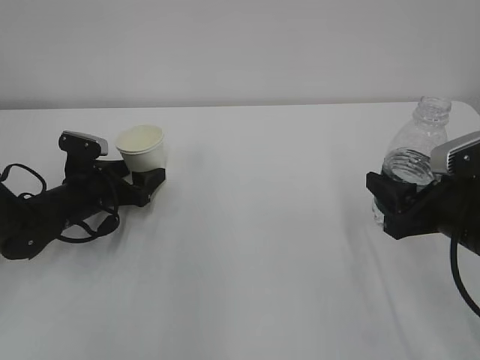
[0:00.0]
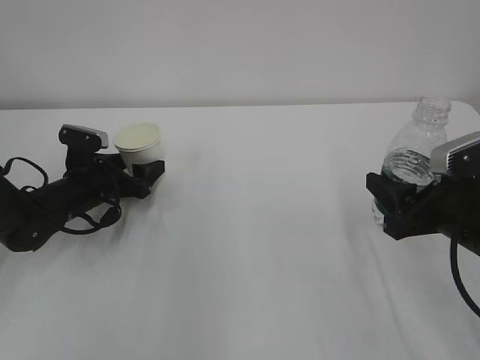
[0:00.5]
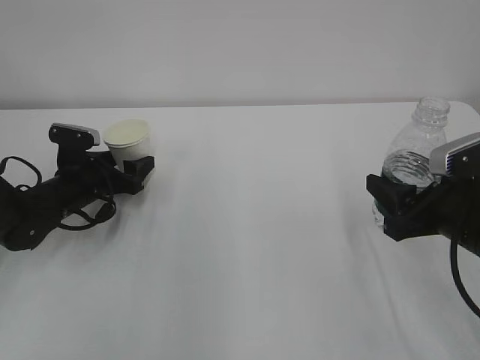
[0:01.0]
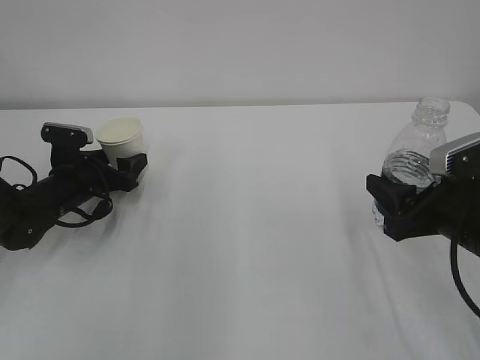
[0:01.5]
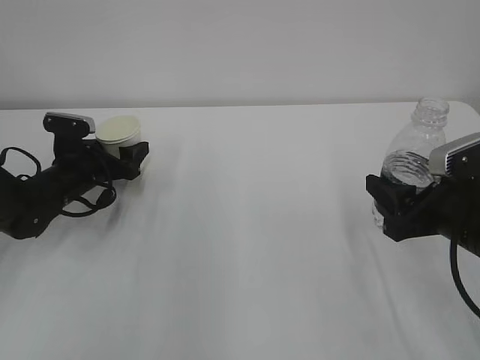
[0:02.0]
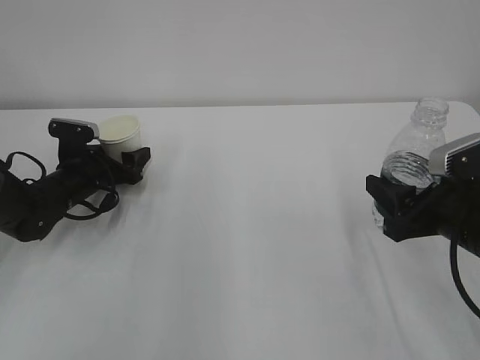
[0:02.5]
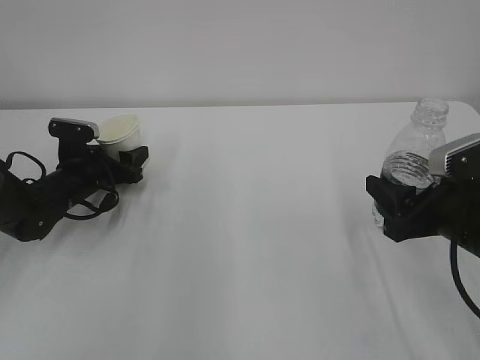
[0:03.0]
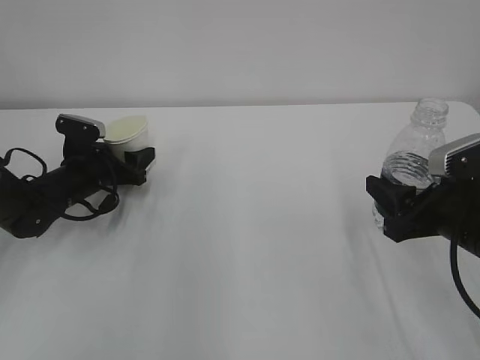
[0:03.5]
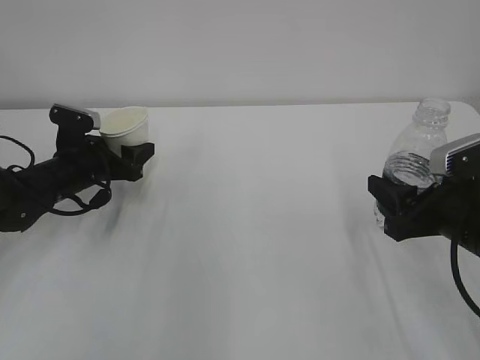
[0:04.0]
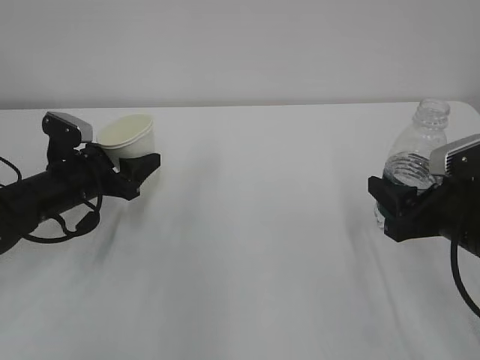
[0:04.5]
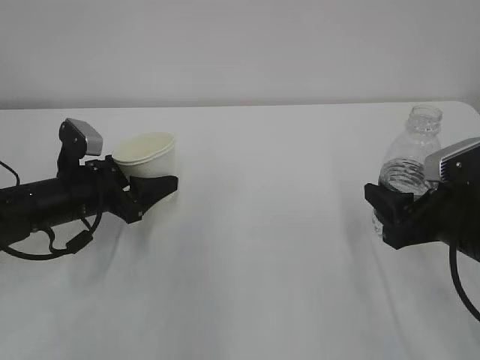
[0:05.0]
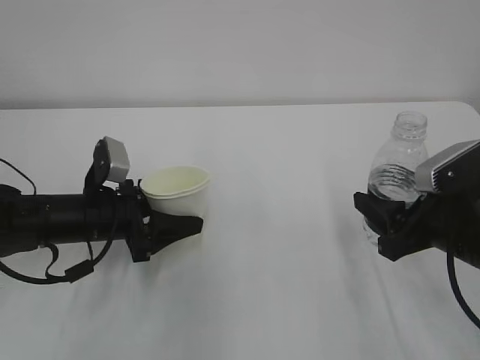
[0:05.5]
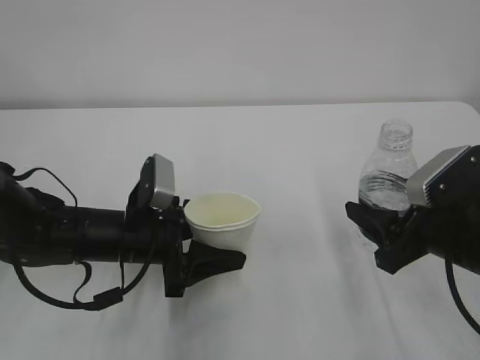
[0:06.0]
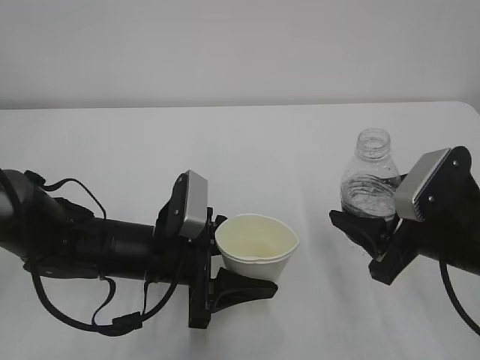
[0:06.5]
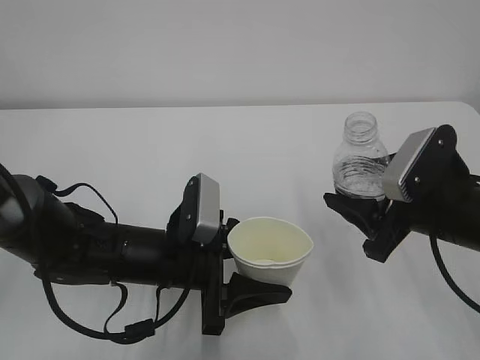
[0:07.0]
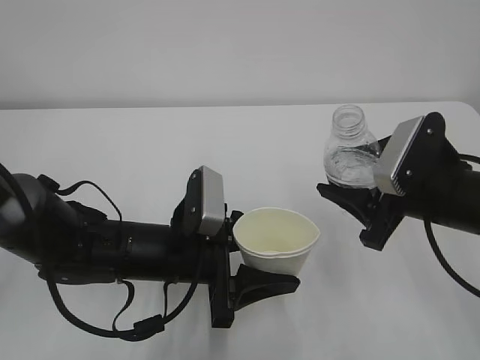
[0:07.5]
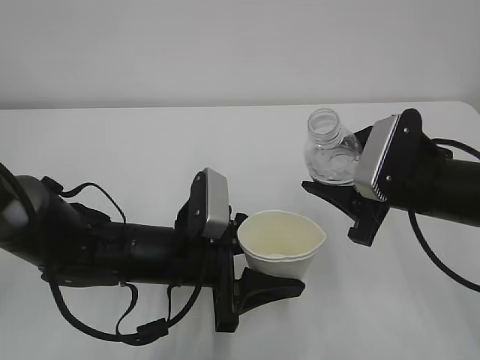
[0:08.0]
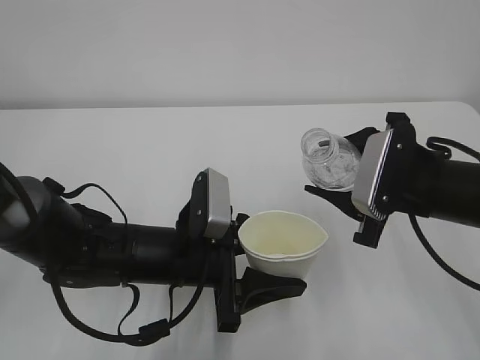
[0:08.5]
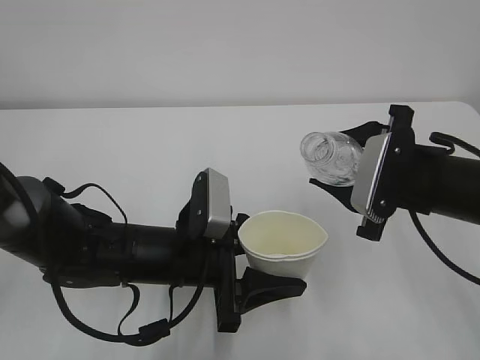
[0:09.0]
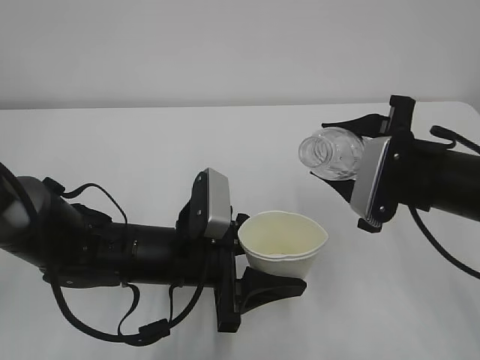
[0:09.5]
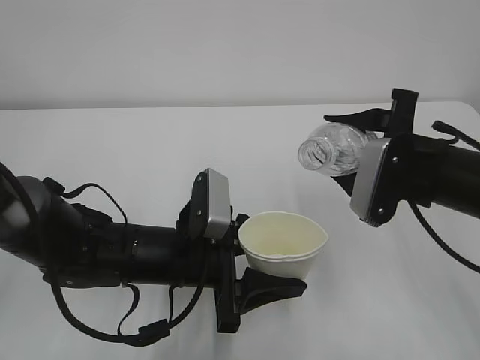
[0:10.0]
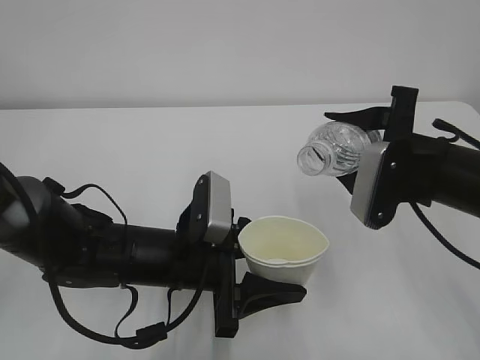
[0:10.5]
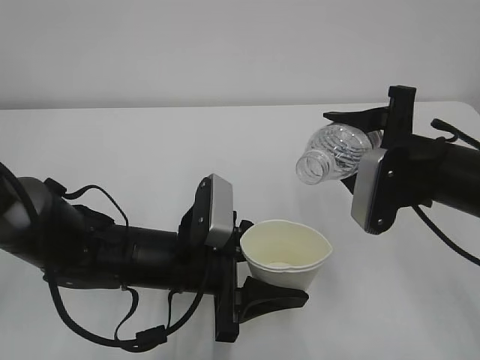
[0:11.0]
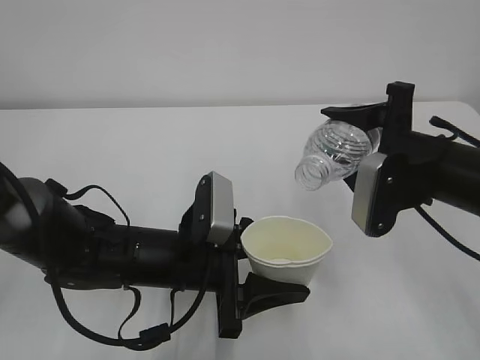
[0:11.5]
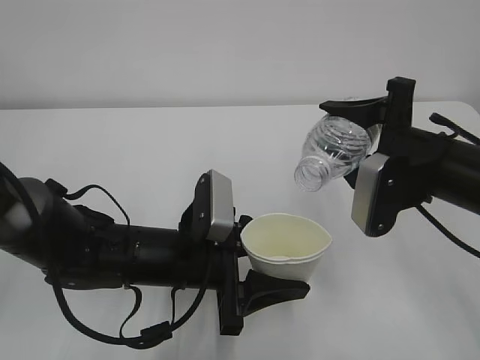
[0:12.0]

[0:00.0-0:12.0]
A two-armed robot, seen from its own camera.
0:00.0 to 0:02.0: The grippers make only small movements.
0:02.0 to 0:04.0: The left gripper closes.
0:04.0 to 0:06.0: The left gripper is displaced backward and to the right by about 15 cm.
0:06.0 to 0:08.0: The right gripper changes place by about 5 cm. The left gripper is displaced to the right by approximately 5 cm.
0:10.0 to 0:12.0: The grippers make only small movements.

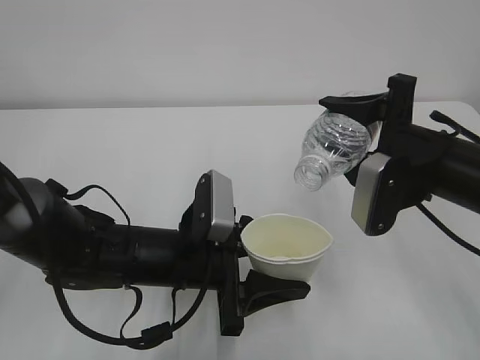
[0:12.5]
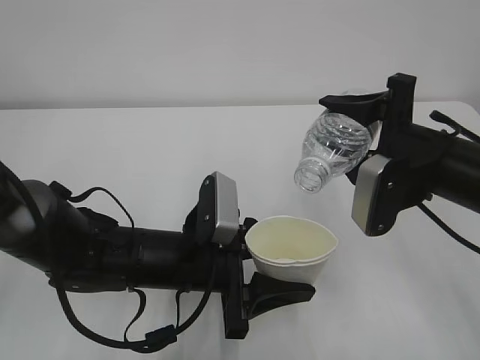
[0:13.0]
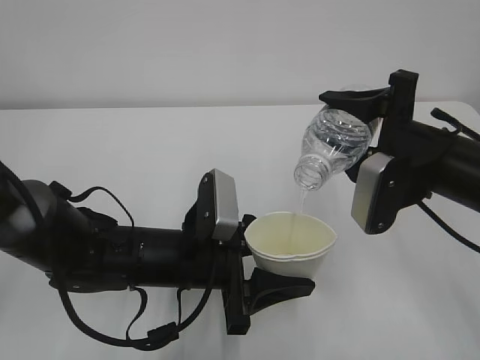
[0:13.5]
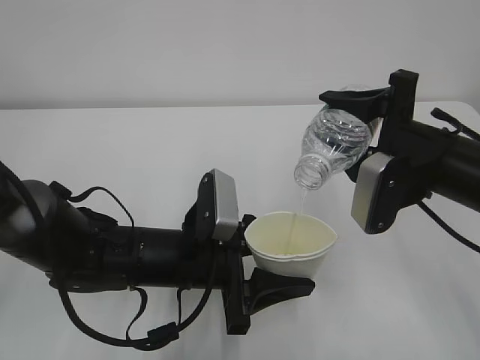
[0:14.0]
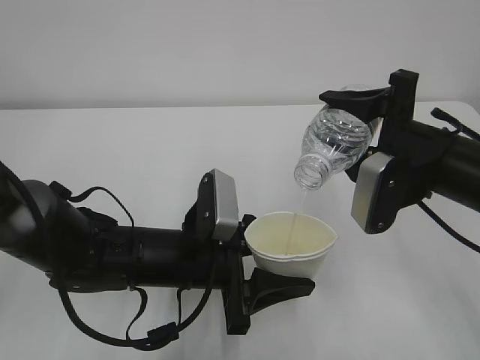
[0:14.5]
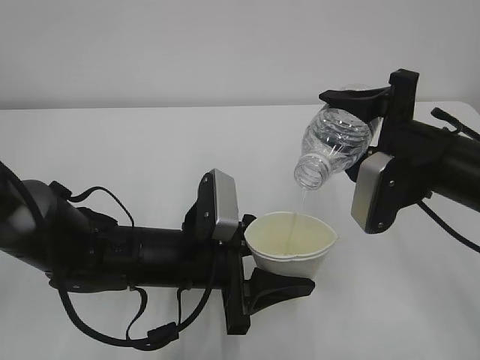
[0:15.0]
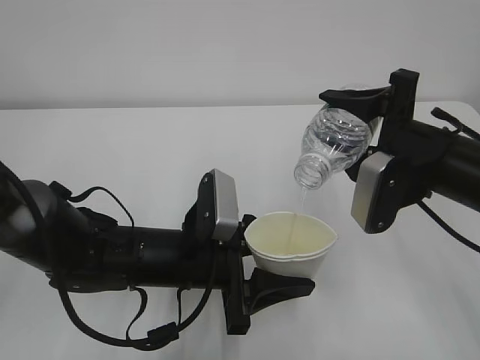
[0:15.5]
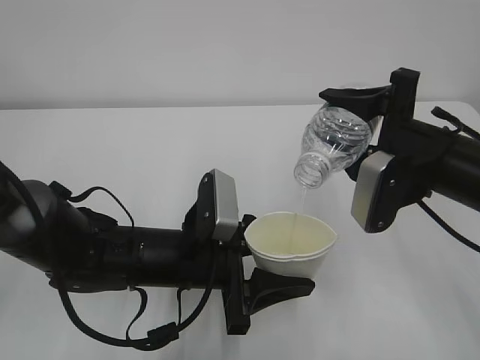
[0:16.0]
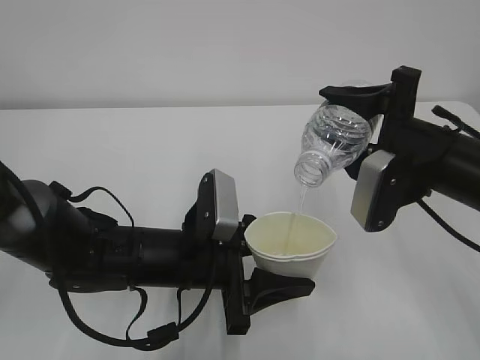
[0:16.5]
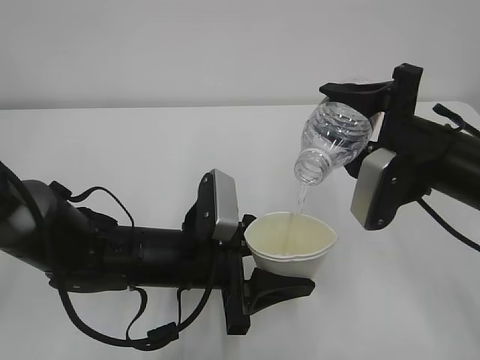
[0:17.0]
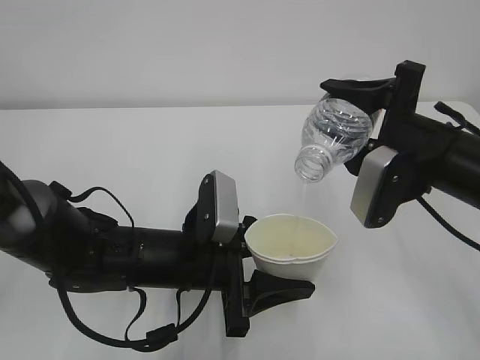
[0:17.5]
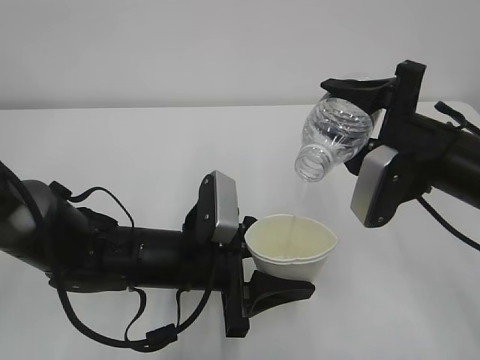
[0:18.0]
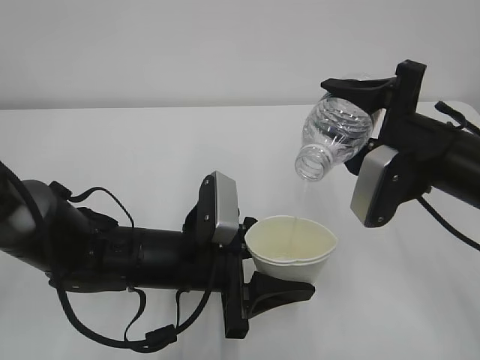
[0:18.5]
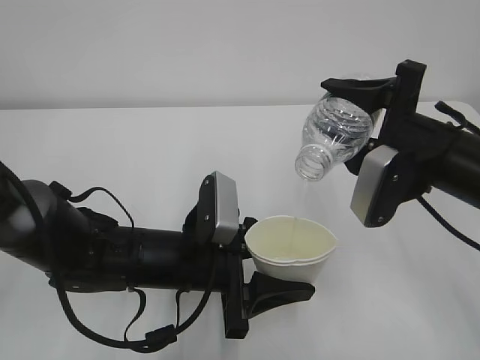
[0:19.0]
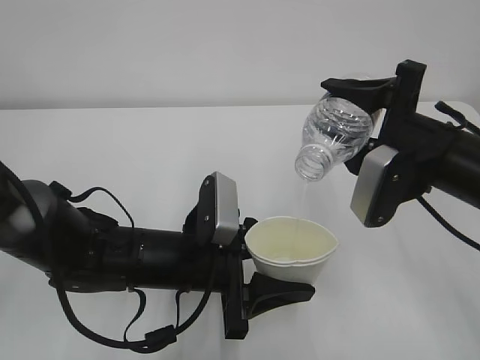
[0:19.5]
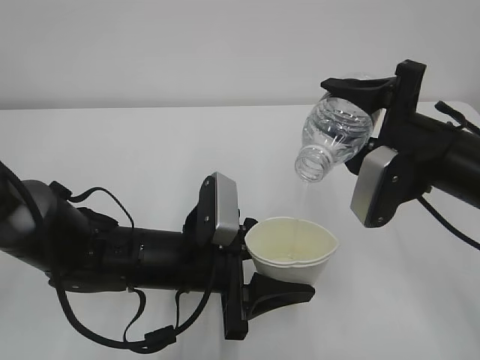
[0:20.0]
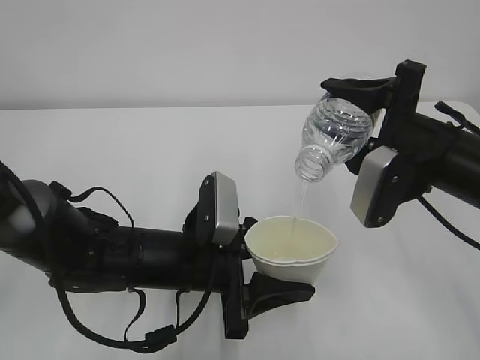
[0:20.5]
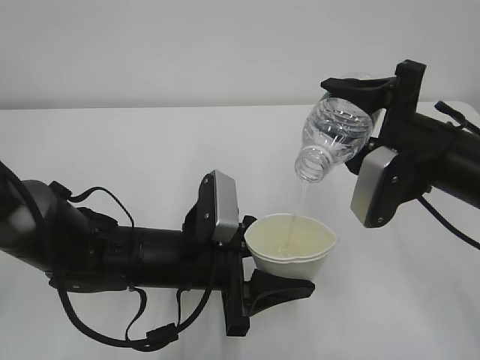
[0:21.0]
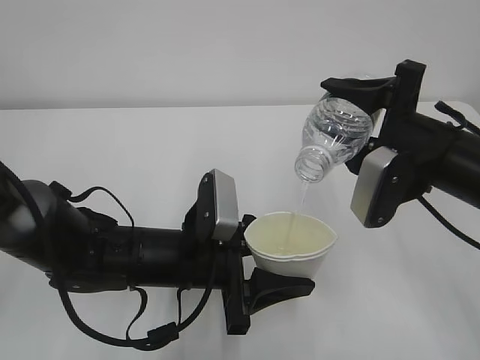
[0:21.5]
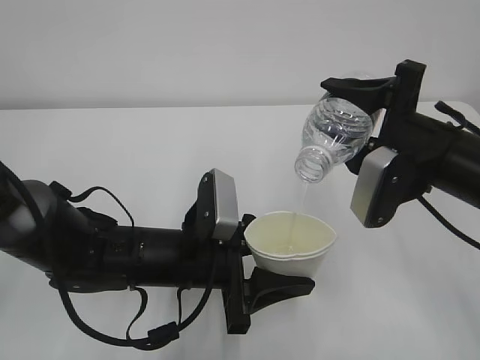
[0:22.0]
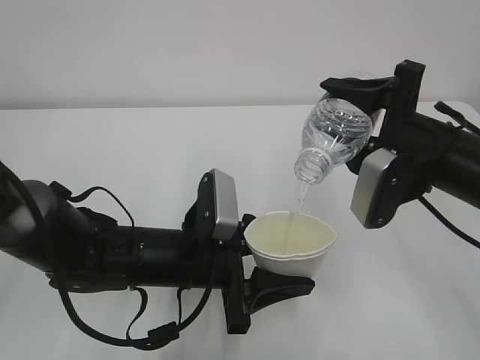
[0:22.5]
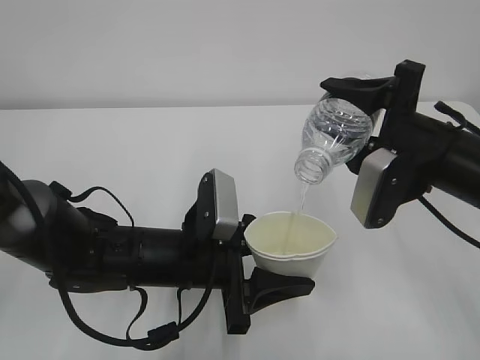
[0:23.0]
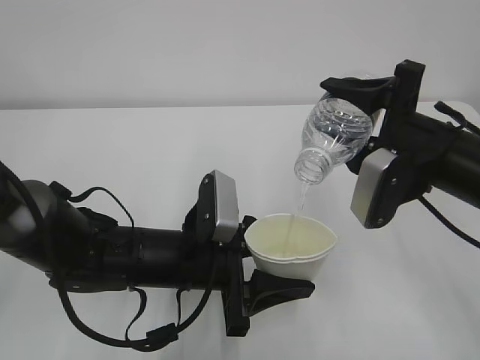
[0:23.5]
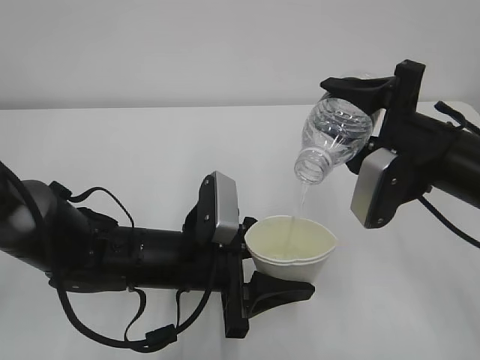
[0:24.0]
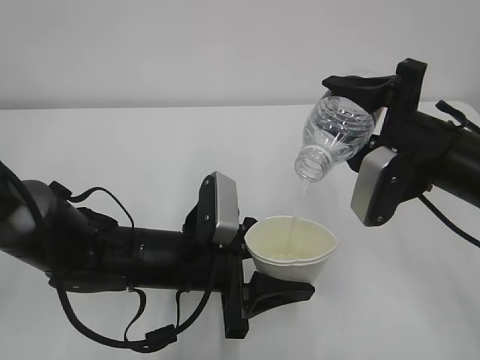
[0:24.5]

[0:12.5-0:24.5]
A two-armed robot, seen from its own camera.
0:12.5 to 0:16.5: Both grippers stay about where they are.
0:16.5 to 0:24.5: Neither gripper changes place.

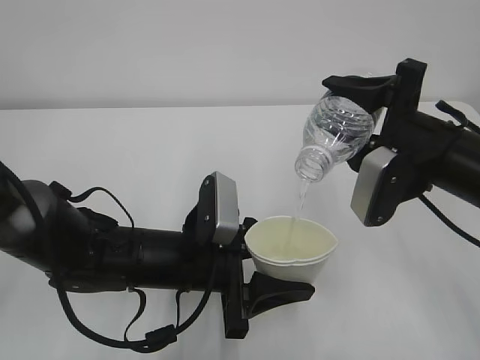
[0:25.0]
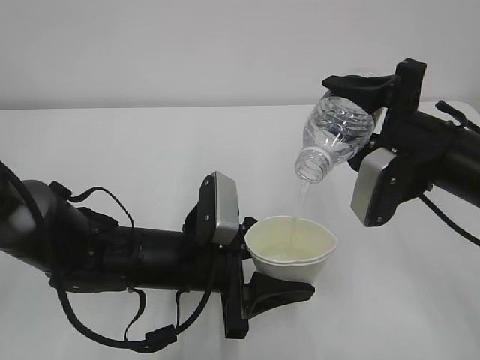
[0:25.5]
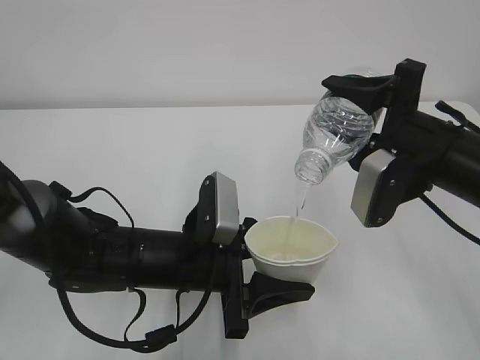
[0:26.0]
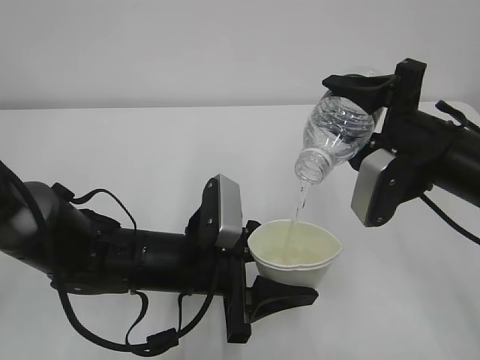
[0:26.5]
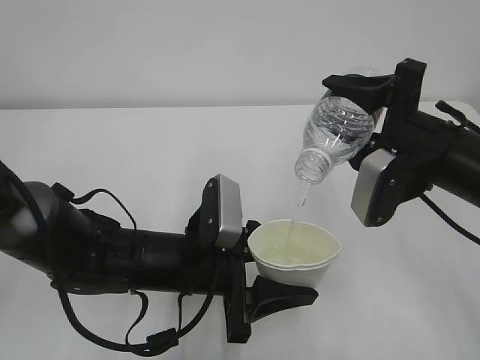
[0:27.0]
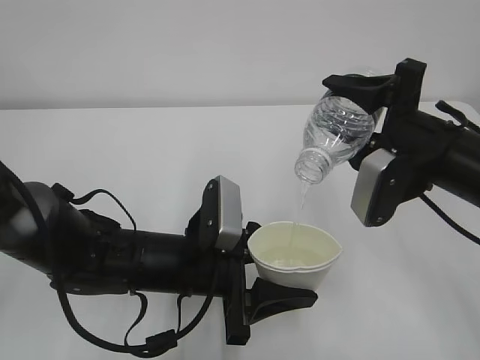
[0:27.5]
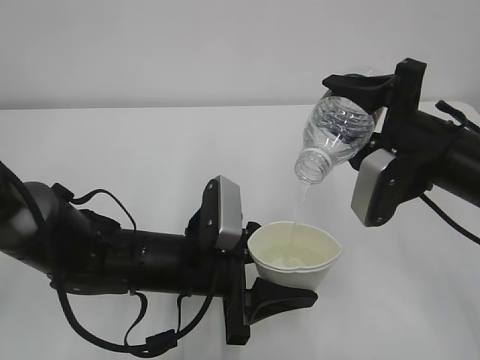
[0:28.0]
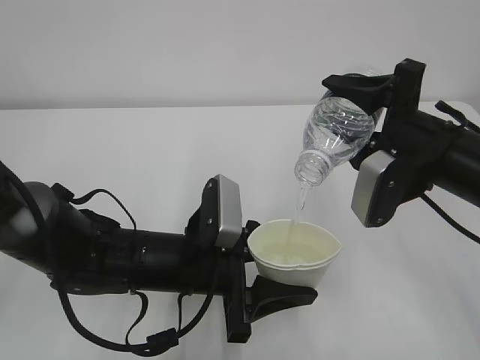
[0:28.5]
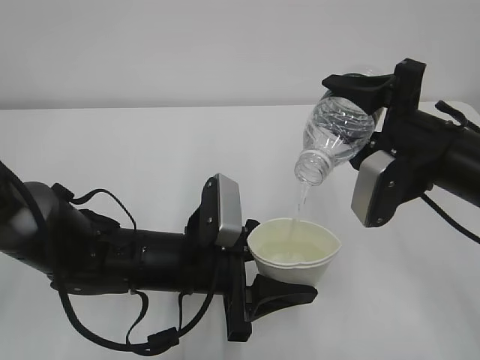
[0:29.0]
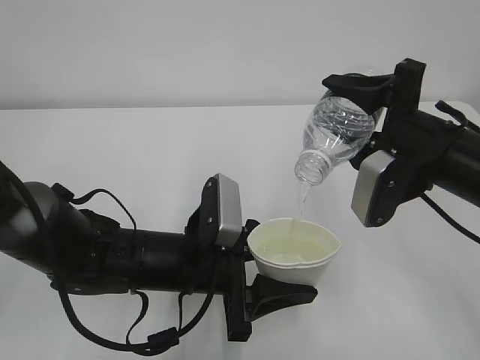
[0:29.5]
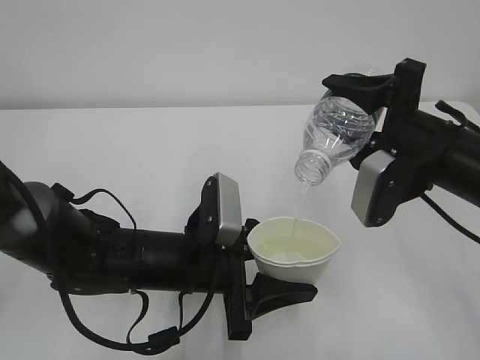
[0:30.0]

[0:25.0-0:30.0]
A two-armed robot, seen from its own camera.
0:25.0 to 0:30.0: The two grippers keep their place.
